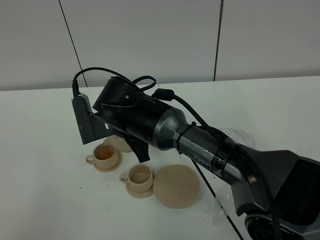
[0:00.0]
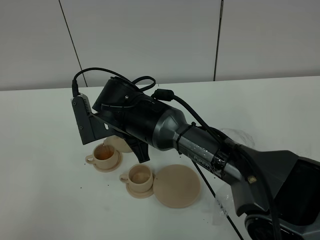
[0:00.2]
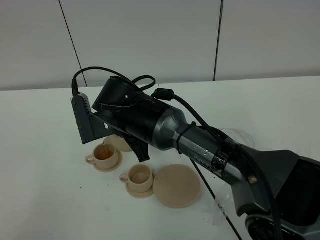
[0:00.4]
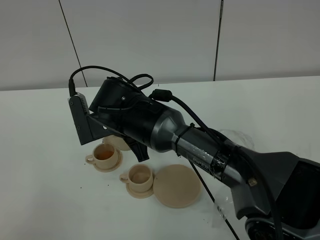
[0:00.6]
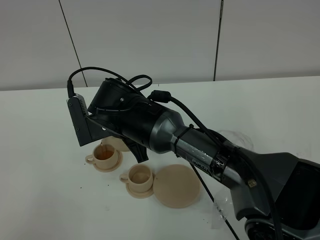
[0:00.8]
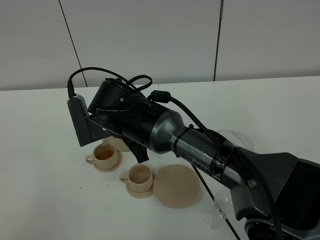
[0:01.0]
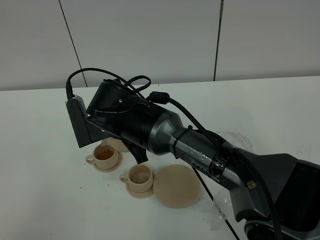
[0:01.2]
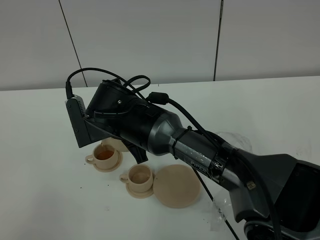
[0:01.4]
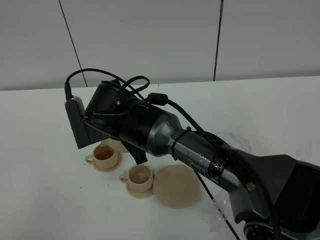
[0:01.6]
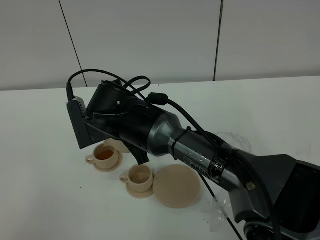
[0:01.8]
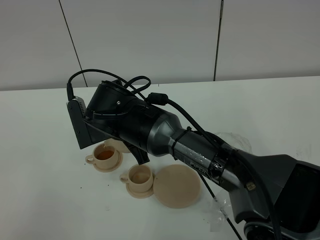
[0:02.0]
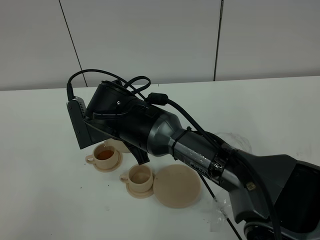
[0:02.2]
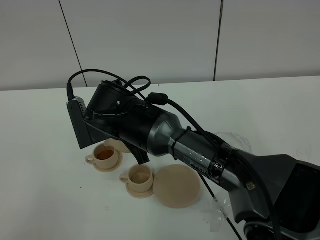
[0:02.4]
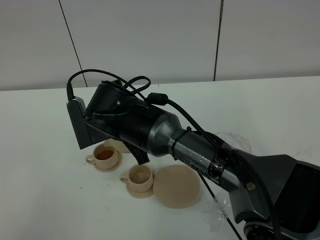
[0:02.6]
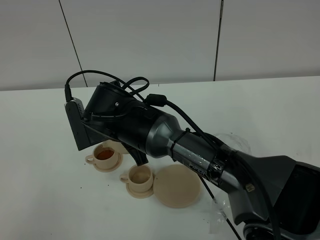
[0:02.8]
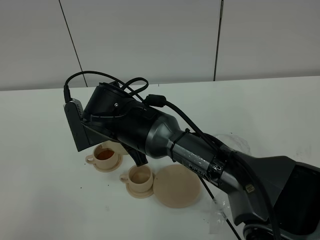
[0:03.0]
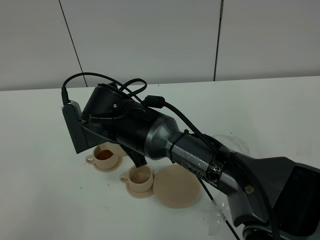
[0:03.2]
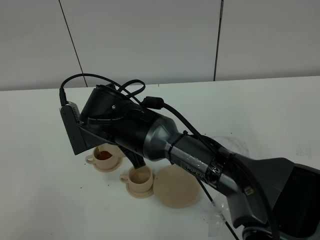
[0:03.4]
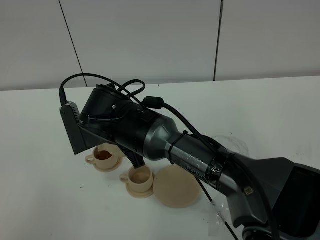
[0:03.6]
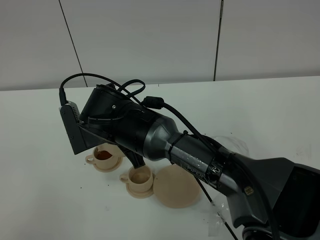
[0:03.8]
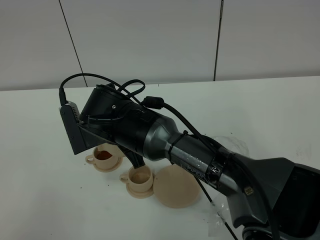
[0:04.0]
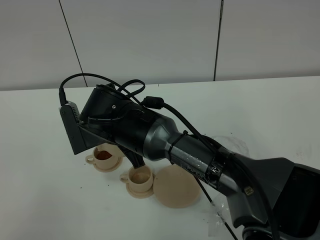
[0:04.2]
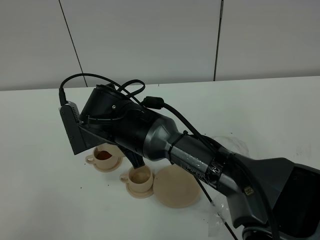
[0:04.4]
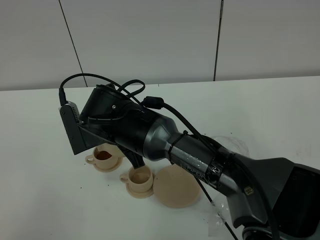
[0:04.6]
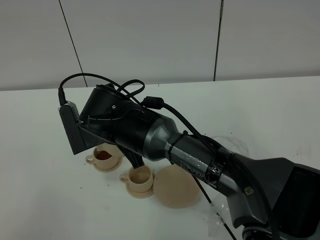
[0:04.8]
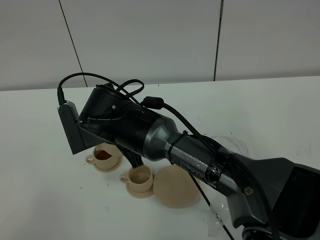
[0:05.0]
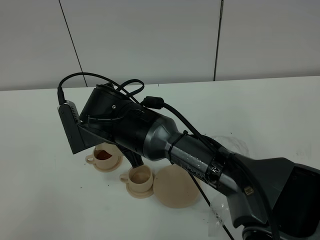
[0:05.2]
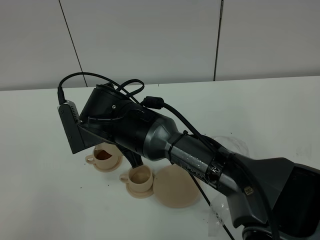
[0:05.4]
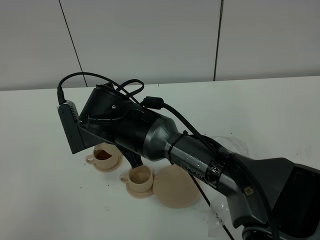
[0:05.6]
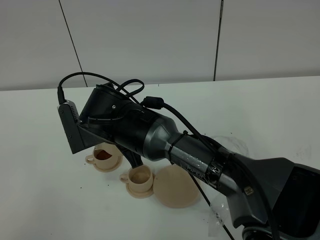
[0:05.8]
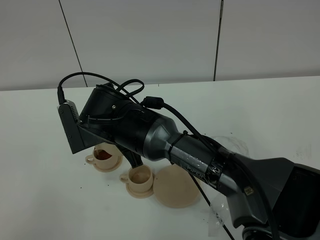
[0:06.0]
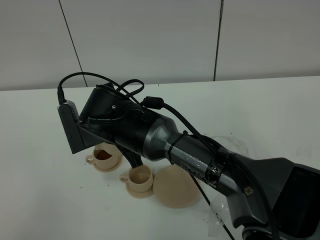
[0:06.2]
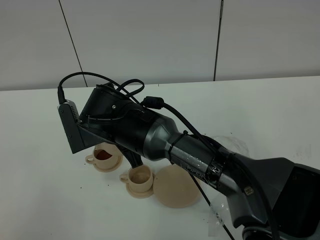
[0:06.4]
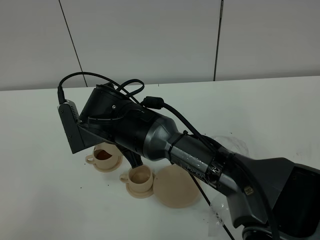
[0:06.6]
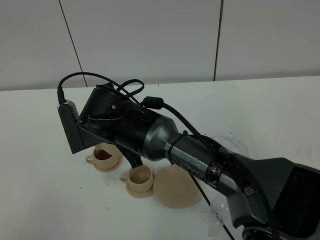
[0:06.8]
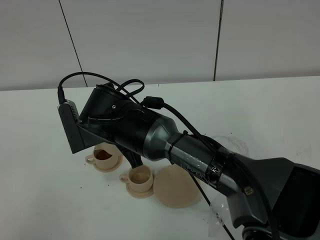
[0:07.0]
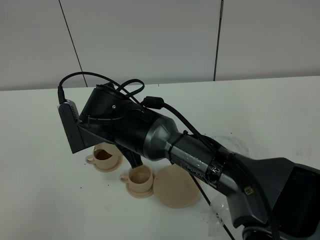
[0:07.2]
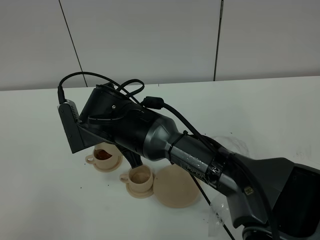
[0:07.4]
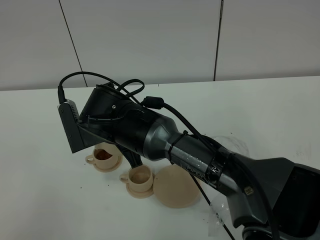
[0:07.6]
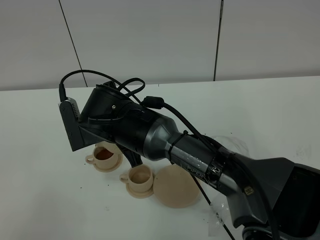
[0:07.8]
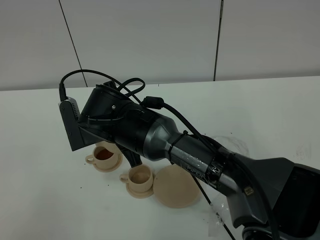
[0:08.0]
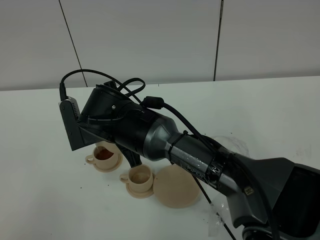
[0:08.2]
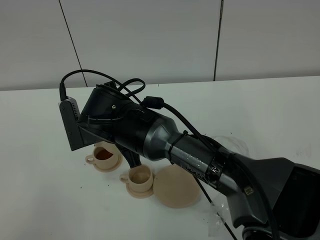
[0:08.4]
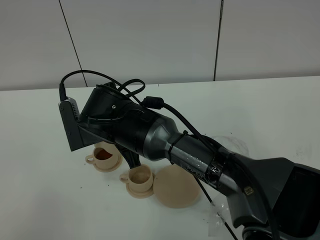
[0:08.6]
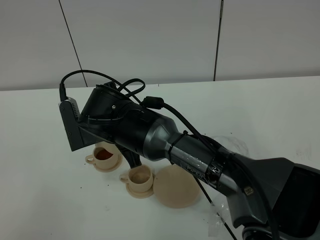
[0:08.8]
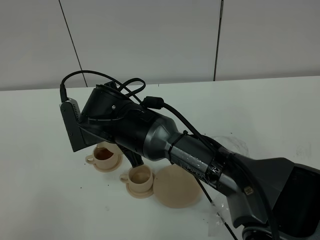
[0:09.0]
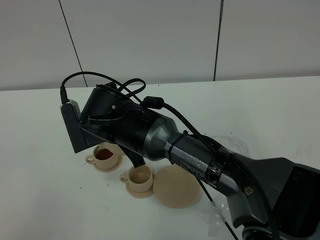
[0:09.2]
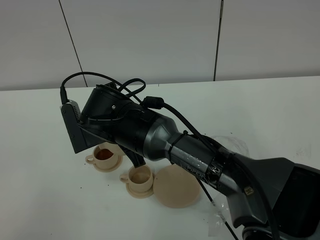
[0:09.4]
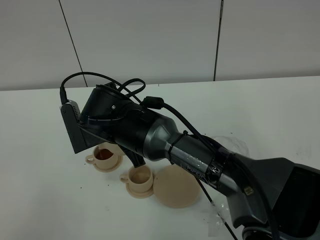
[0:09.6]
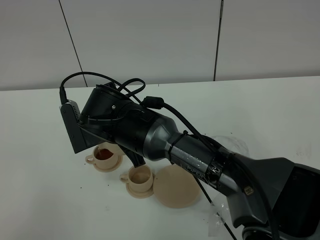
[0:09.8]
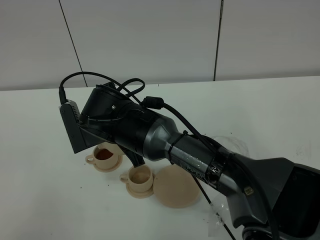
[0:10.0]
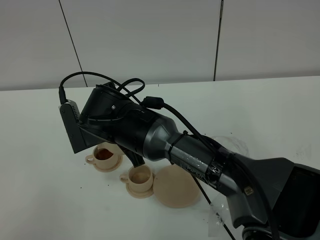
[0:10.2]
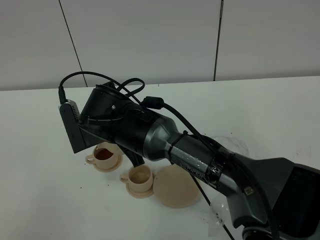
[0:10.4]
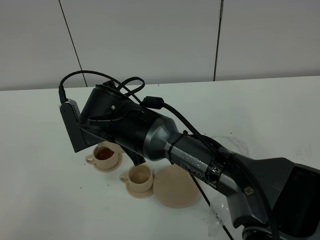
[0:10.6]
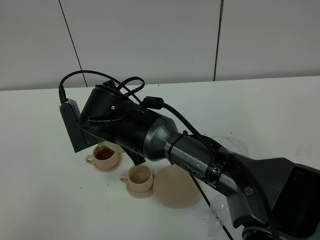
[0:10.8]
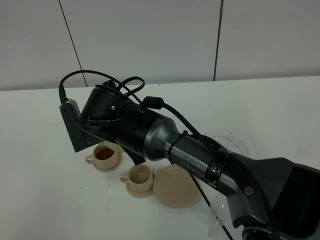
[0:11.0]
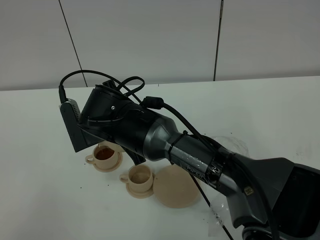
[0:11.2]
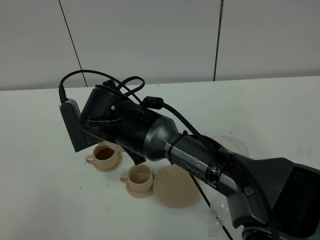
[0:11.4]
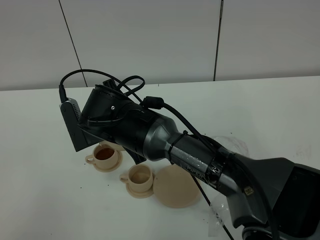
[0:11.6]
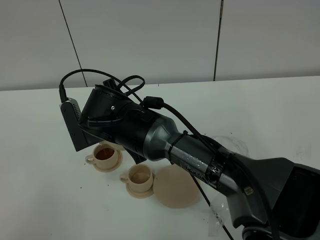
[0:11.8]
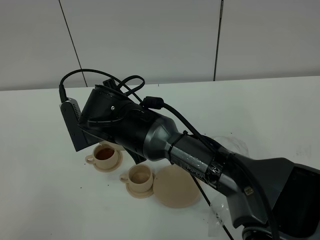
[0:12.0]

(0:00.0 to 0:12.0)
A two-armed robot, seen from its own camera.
Task of the whole recording: grasp the brown teapot and pour the tea into the two brown teacups one by one, put the brown teapot back in its original place.
0:00.0 - 0:01.6: The grippers move only a little.
0:01.6 - 0:12.0: Both grippers stay about where they are.

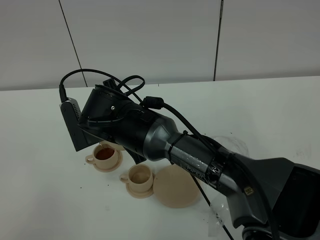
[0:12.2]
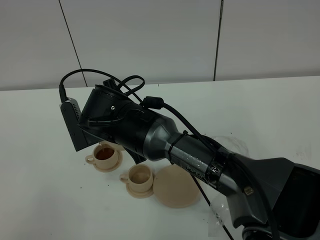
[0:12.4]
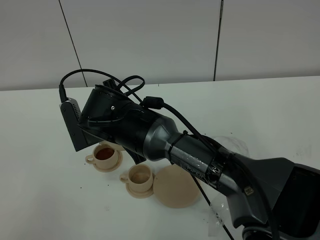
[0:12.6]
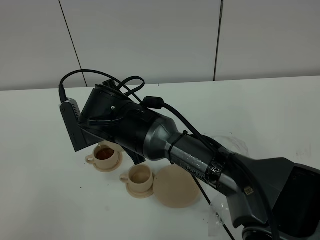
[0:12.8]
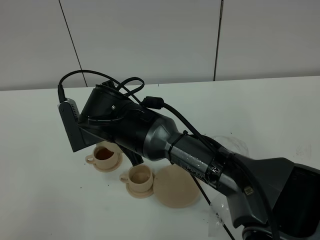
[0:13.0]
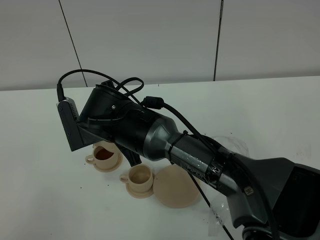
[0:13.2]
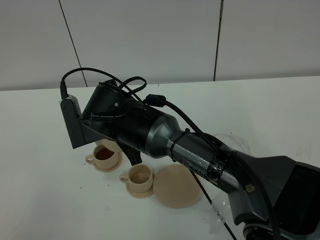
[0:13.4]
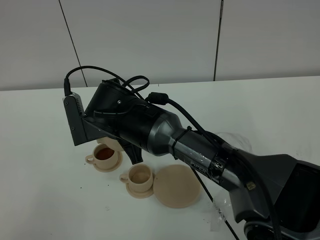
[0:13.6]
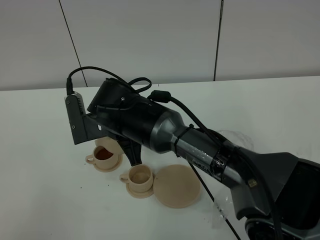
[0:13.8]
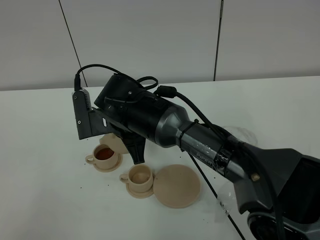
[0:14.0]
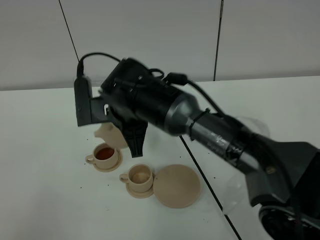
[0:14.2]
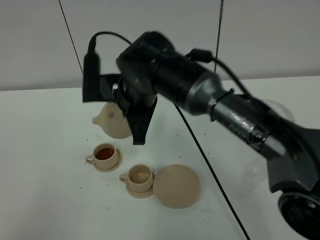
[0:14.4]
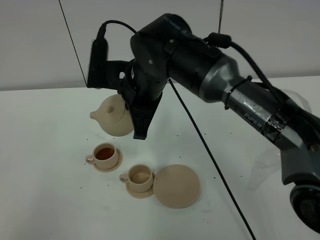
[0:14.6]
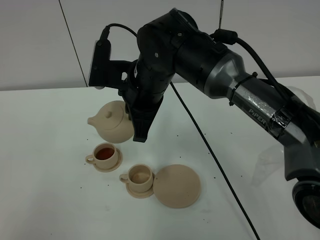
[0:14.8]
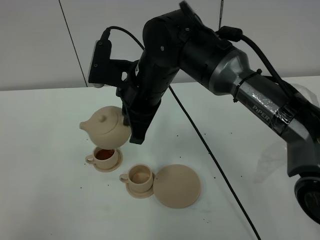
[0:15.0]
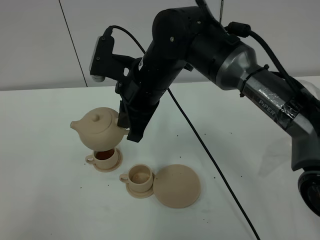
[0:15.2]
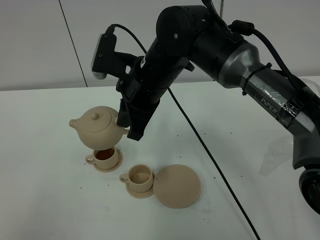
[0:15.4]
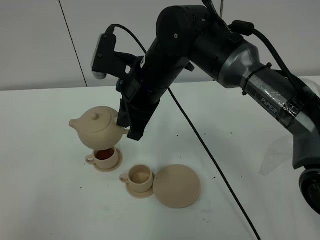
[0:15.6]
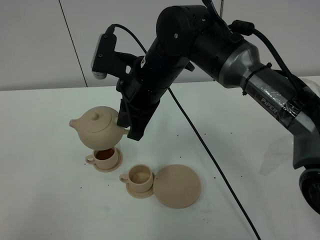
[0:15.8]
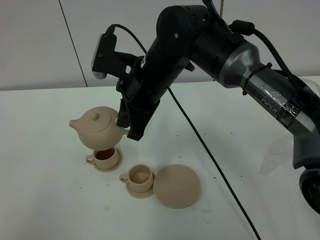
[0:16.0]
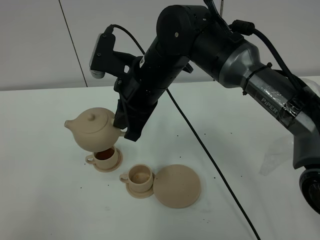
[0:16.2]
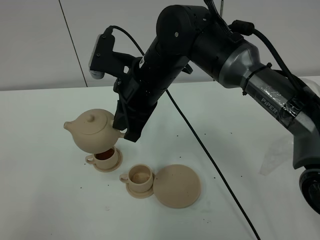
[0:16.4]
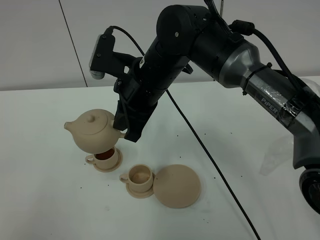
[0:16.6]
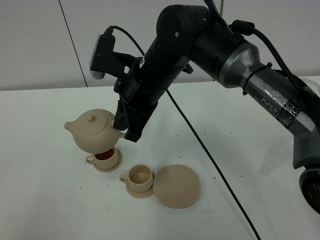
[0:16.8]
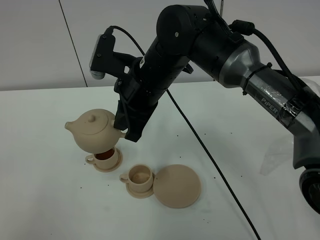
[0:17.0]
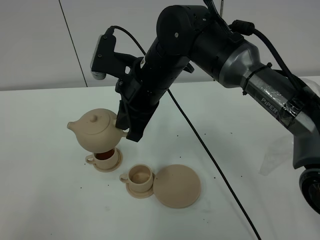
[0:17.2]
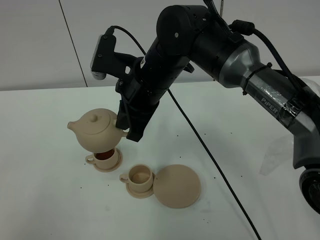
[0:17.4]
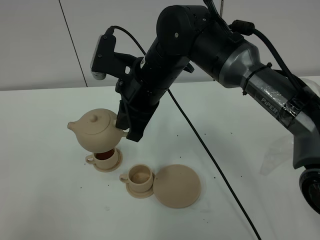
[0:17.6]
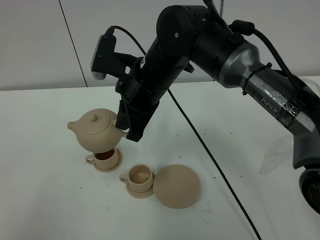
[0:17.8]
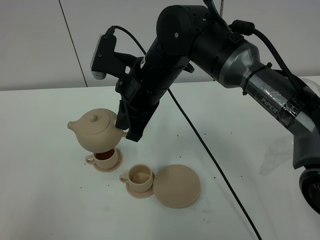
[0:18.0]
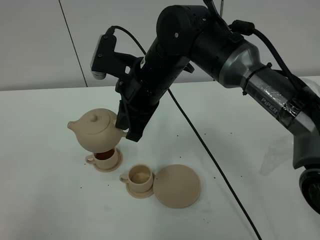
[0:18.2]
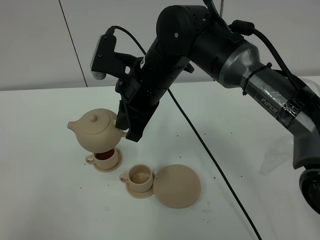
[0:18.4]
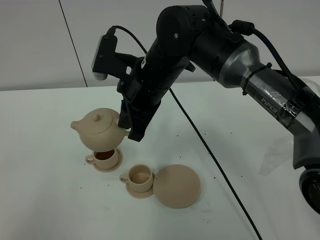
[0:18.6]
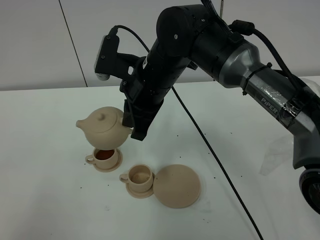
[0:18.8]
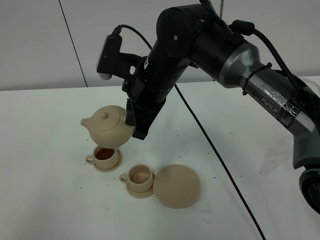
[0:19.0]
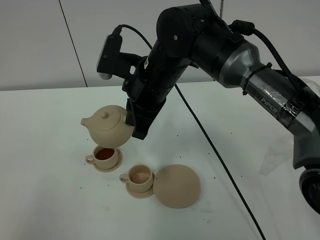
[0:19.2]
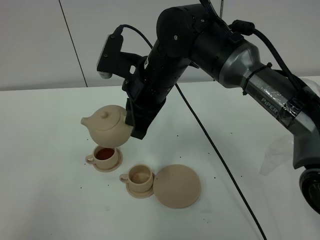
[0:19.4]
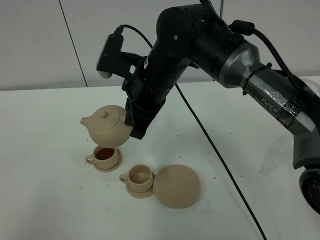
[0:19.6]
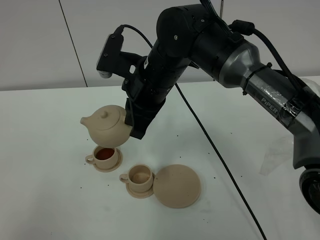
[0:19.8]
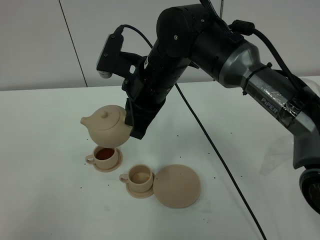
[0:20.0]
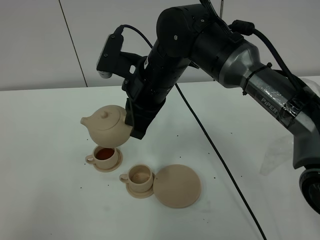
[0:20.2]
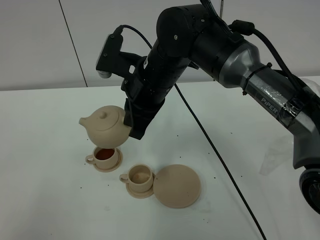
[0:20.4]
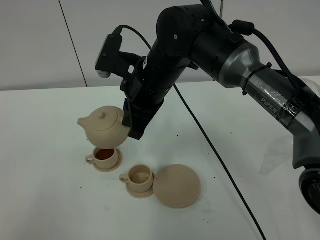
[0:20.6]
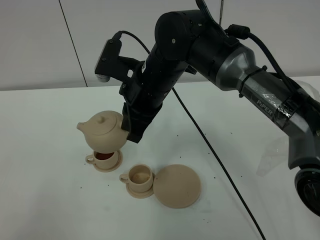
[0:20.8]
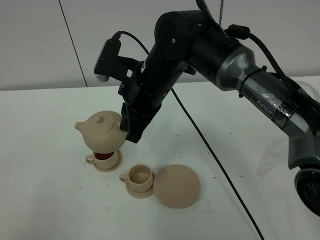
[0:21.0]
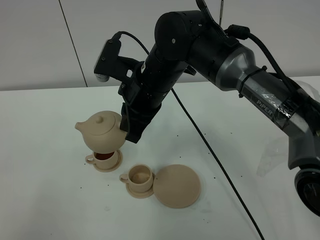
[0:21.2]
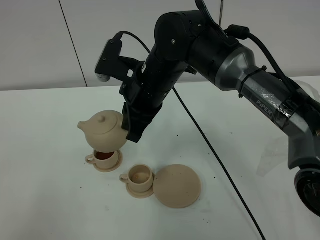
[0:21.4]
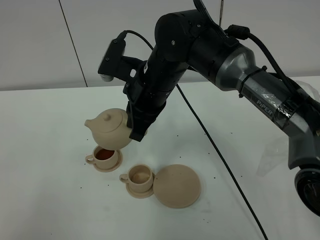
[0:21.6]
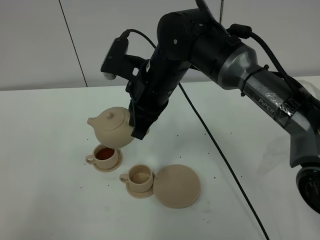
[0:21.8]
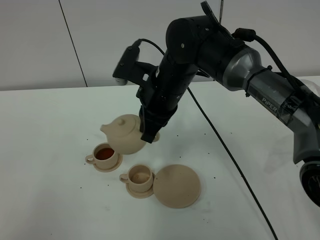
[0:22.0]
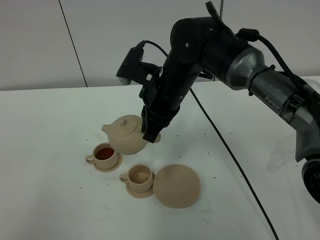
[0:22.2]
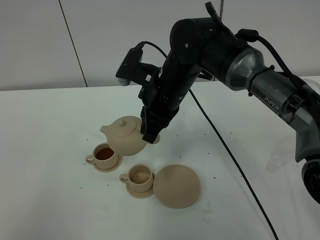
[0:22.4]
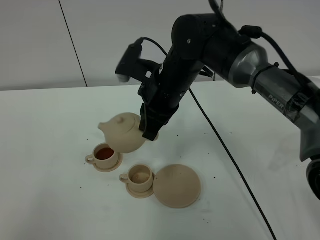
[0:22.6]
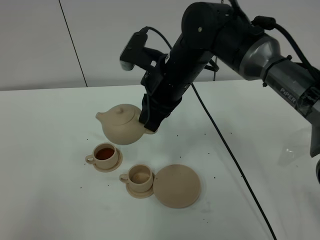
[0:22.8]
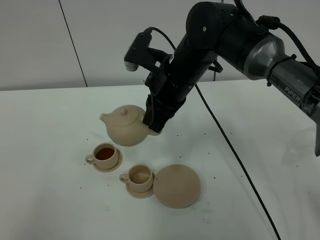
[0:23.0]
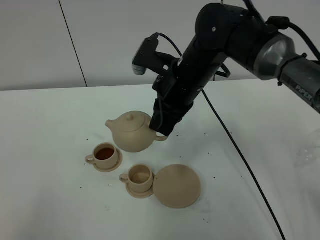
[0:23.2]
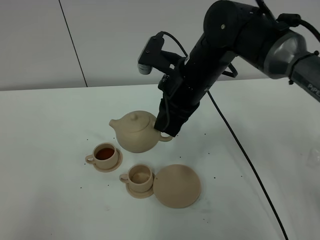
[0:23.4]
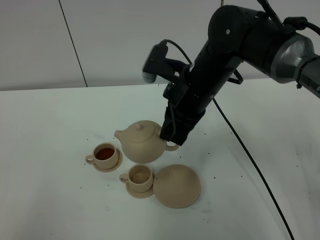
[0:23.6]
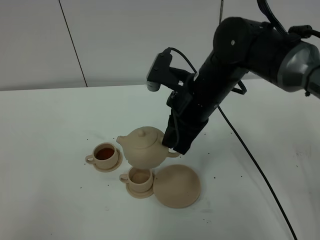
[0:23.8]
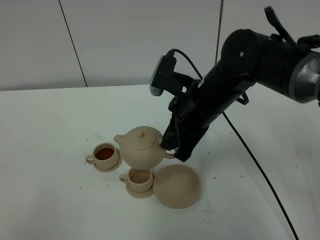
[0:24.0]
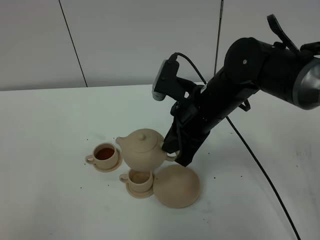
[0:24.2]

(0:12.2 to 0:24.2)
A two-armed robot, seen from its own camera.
Task of the whole recording: grasp the brown teapot and pour the tea into the two brown teacups one by one, put the brown teapot back in its original place.
0:12.2 - 0:13.8: There are only small adjustments of the grippers.
0:13.8 - 0:15.2: The right gripper shifts roughly 10 cm upward and to the right.
0:15.2 - 0:18.2: Both grippers stay put.
0:18.2 - 0:19.8: The grippers move only a little.
0:19.8 - 0:21.2: Neither gripper changes place.
0:21.2 - 0:22.6: The grippers move only a little.
0:22.6 - 0:24.2: The right gripper heads to the right, covering approximately 5 cm.
